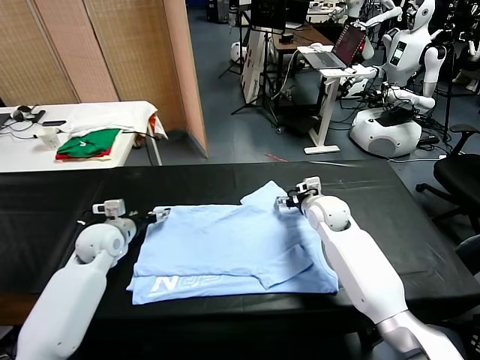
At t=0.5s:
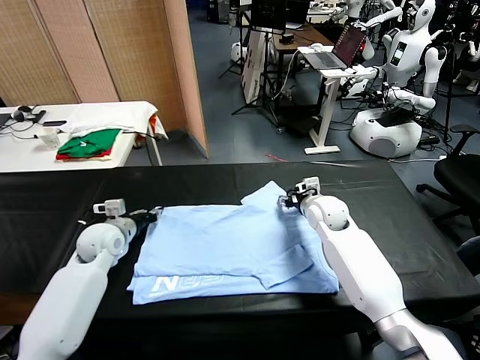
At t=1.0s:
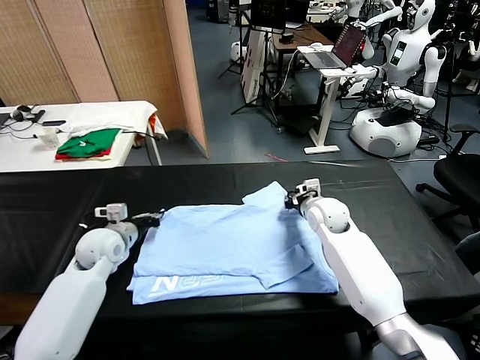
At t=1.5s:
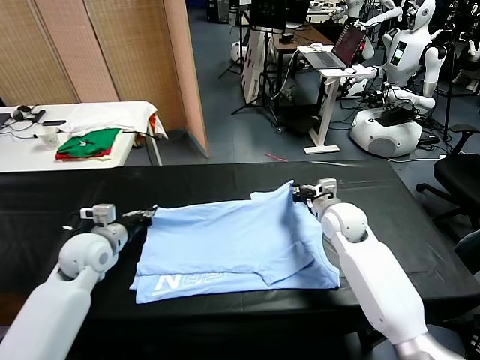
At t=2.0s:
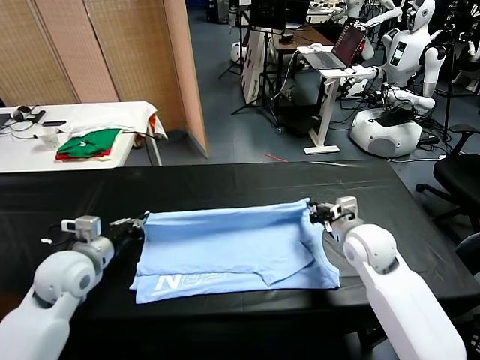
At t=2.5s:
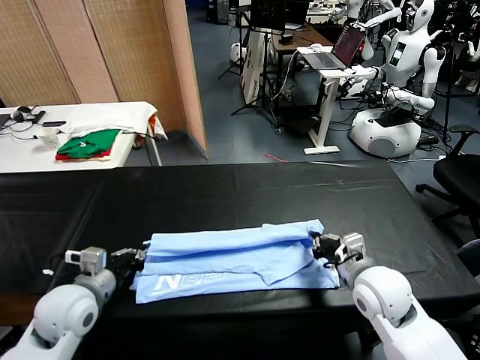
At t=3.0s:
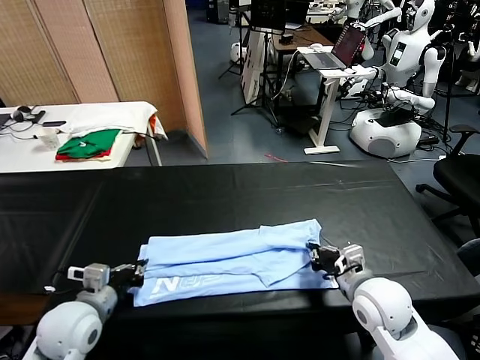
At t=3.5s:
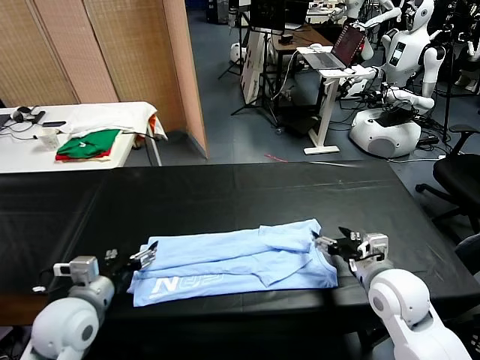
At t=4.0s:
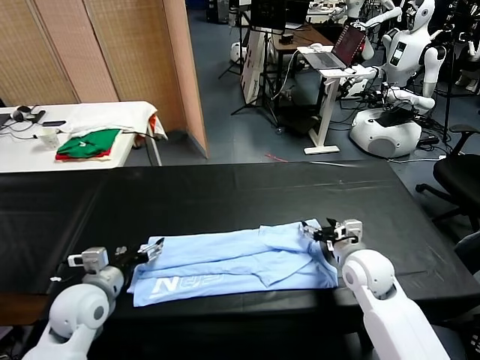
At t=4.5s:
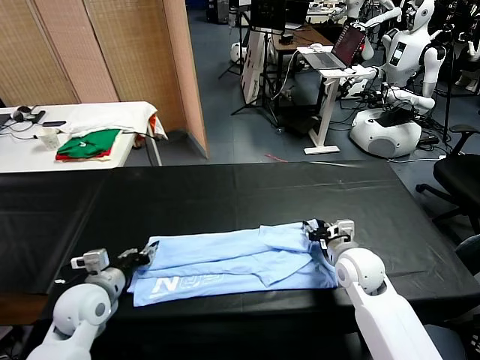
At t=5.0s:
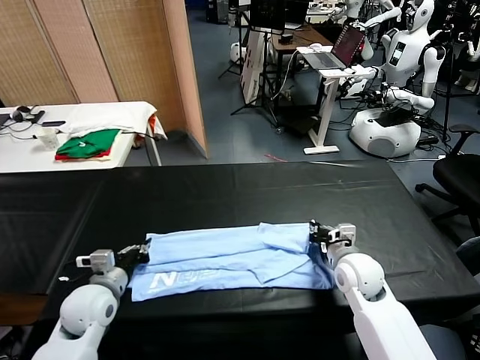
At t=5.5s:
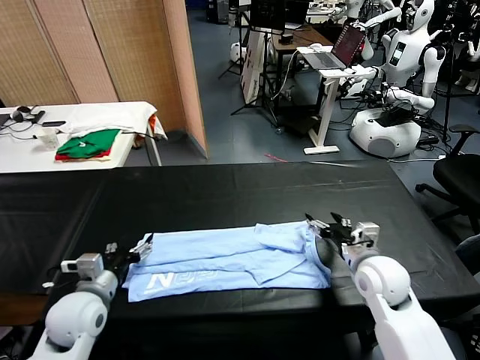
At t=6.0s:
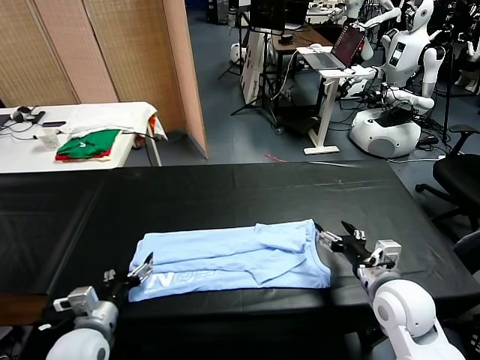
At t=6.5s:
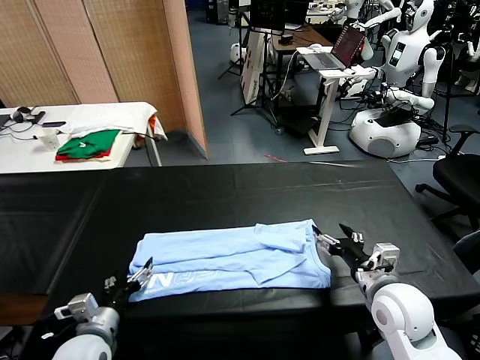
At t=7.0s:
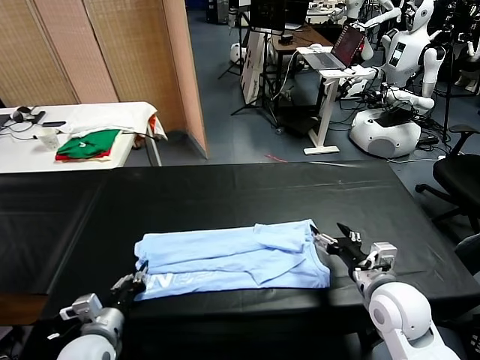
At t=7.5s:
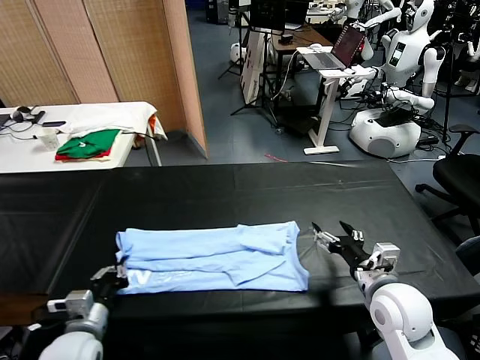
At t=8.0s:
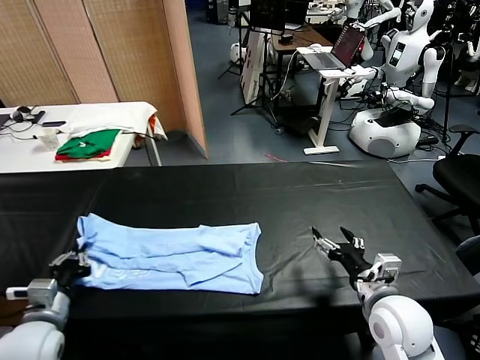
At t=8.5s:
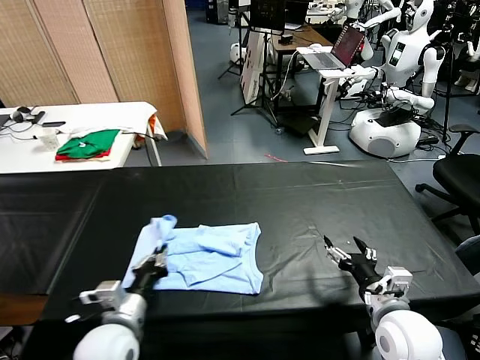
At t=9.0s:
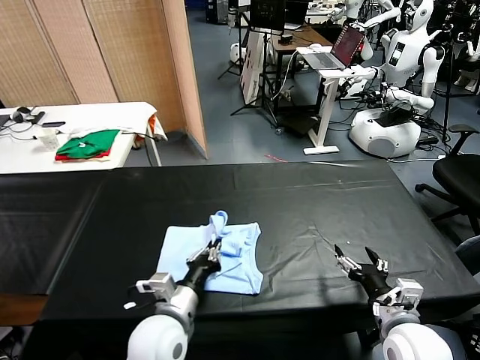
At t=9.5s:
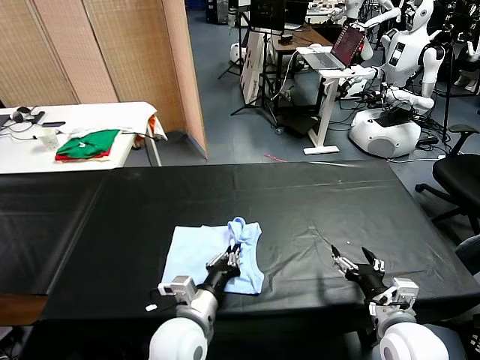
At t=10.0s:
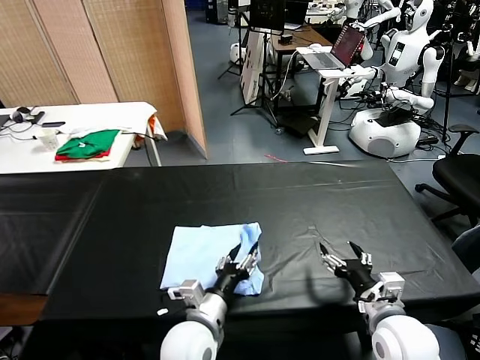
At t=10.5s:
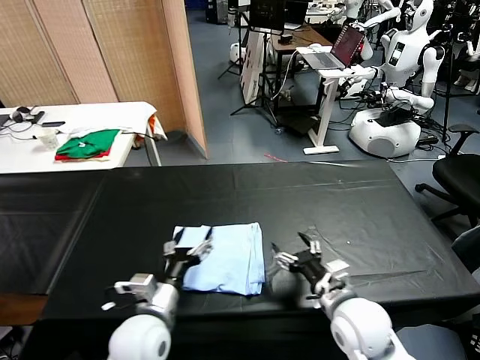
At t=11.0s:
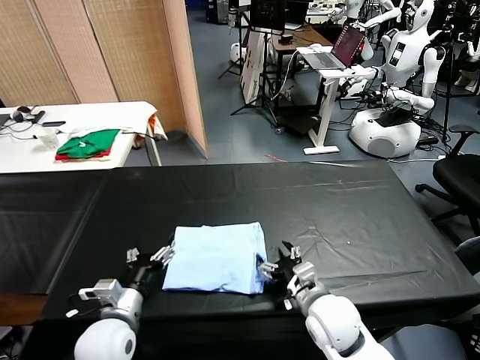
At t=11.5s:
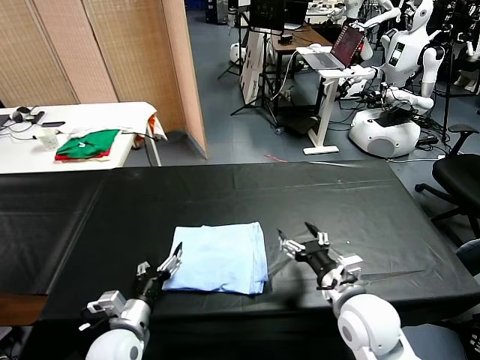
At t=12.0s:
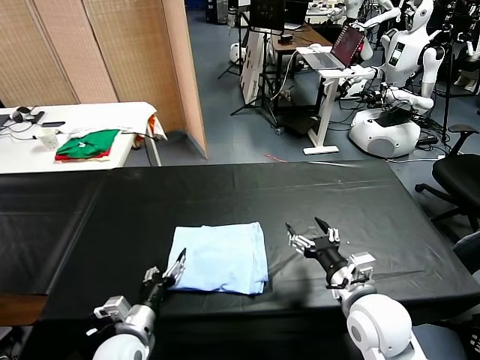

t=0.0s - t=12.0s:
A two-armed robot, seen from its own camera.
Task of the whole recording: fold and organize the clothes.
Step, t=1.0s - t=3.0s: use both grippers to drag the upper edge of the fabric backward and fold it over the lower edge.
Step, t=3.5s - t=7.0s: use the left gripper to clamp the left edge of the fabric.
Step, t=7.5s - t=9.5s: use the left gripper to drag the left edge of the fabric to the left and folds it over the right edge.
t=0.0s - t=2.0s: The left gripper shifts roughly 10 cm backward and upward, and closes, while the right gripper heads backward, covering about 20 cm, and closes.
t=2.0s - t=4.0s: The grippers both shift downward by approximately 5 cm. The right gripper opens its fingers. Meanwhile the left gripper opens its fingers.
t=4.0s - t=6.0s: The right gripper goes approximately 10 cm backward, and closes and opens again. The left gripper travels backward by approximately 5 cm, and closes, then opens again.
t=6.0s - t=8.0s: The left gripper travels to the left by about 10 cm, and closes.
t=8.0s - t=10.0s: The left gripper heads to the right, covering approximately 30 cm, and opens.
t=10.0s - t=12.0s: The left gripper heads to the left, covering roughly 15 cm.

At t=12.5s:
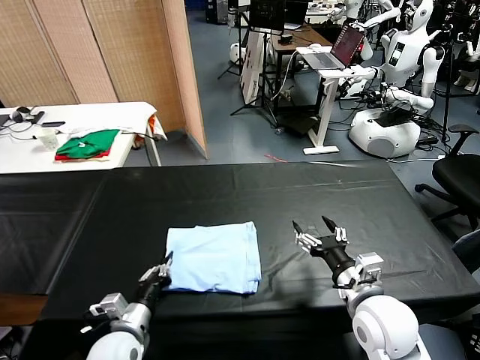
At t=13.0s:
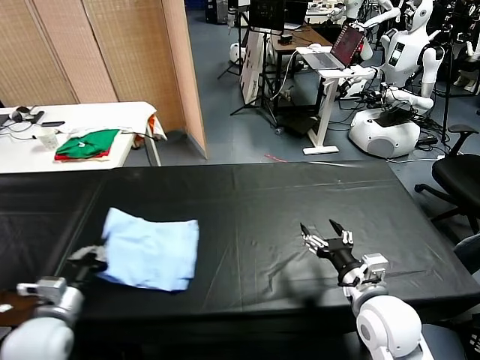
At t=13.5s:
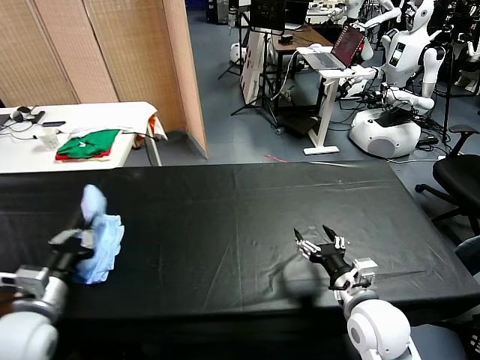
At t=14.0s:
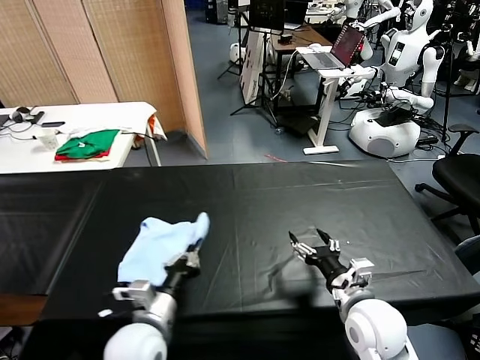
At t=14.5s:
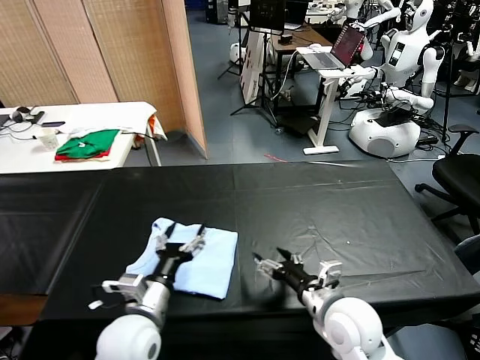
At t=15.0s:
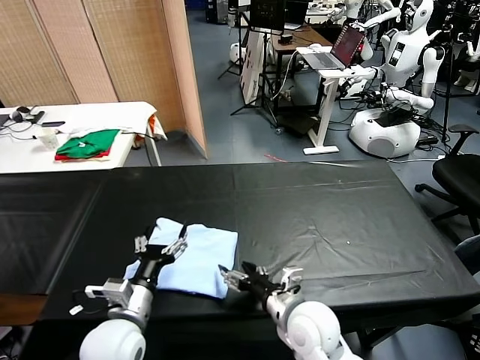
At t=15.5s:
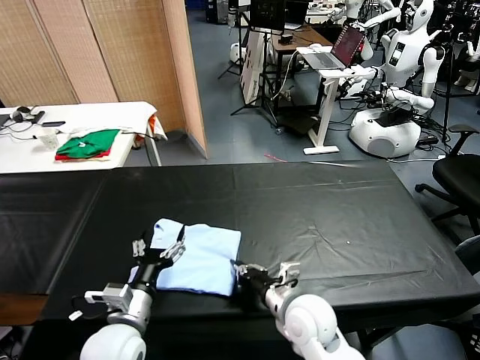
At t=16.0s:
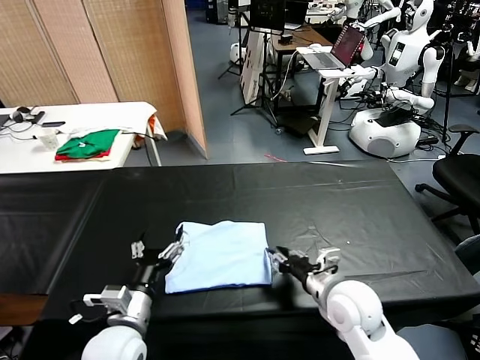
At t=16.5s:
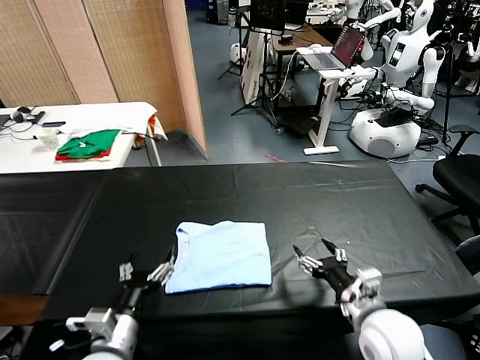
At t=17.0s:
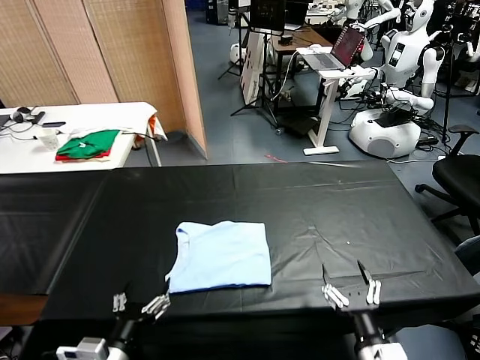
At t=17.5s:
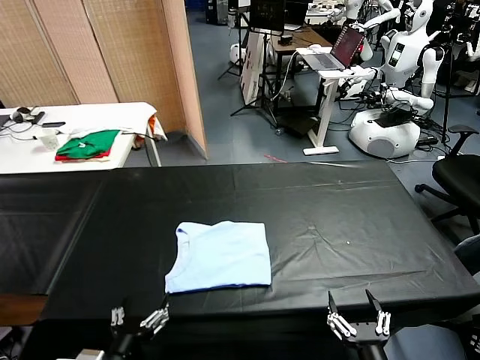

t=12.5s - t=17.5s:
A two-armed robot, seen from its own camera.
Task of the whole recording: fold and organize the clothes.
Step, t=14.5s - t=16.0s: Drag the clothes to the center of the table.
t=12.5s - t=15.0s: The right gripper goes approximately 10 cm to the left and downward; the left gripper travels upward by about 10 cm, reaches roughly 10 cm to the left, then returns, and opens its fingers.
t=15.0s - t=17.5s: The left gripper shifts about 10 cm backward. The right gripper heads backward and to the right, covering approximately 20 cm, and closes and opens again.
